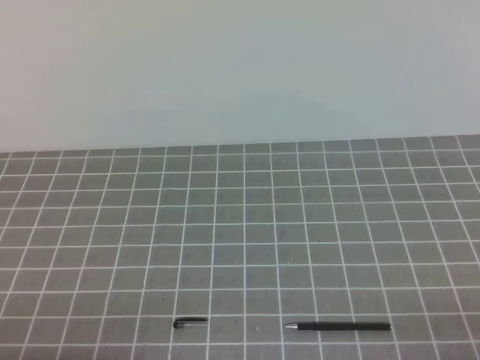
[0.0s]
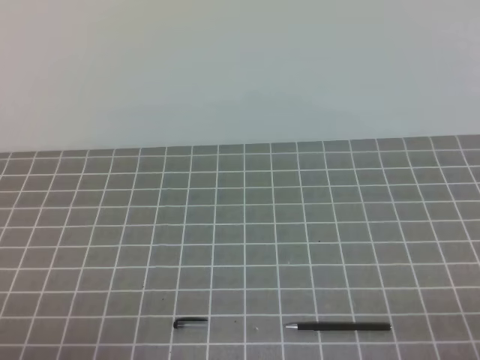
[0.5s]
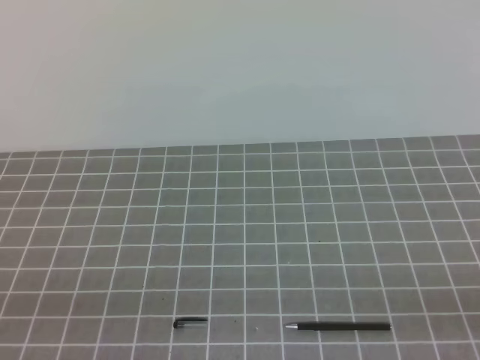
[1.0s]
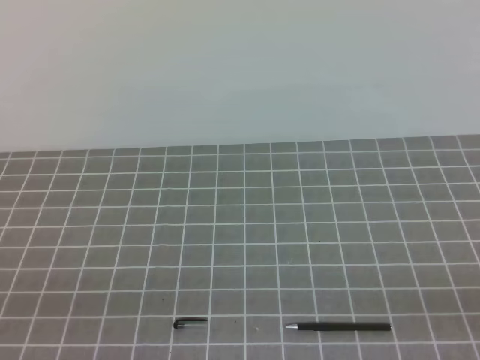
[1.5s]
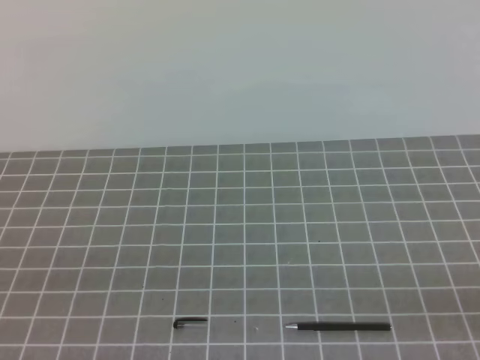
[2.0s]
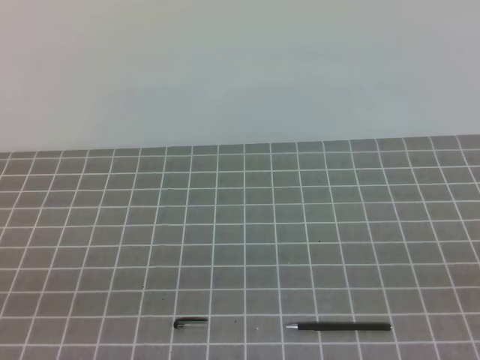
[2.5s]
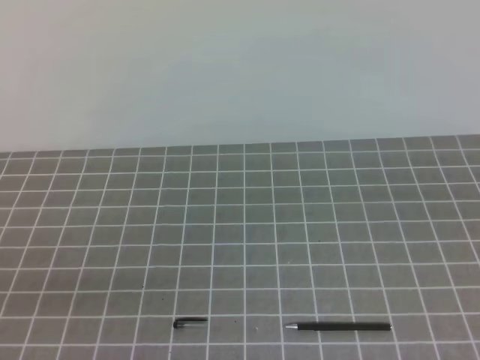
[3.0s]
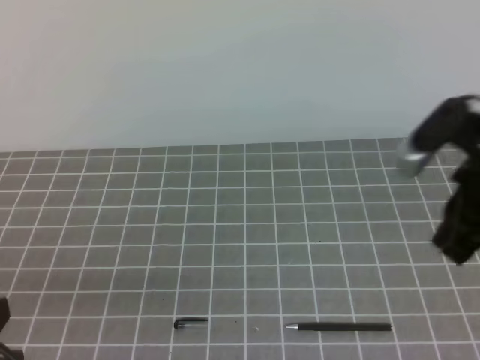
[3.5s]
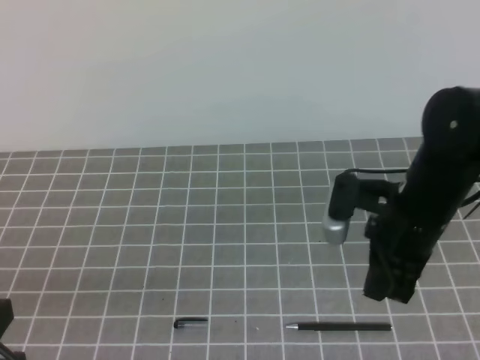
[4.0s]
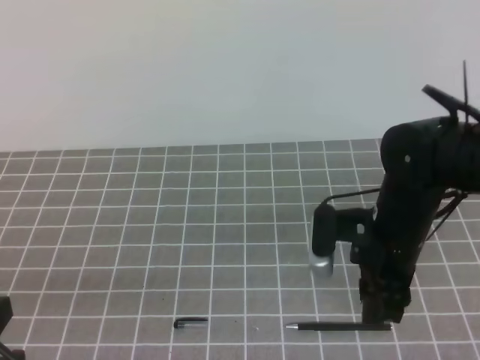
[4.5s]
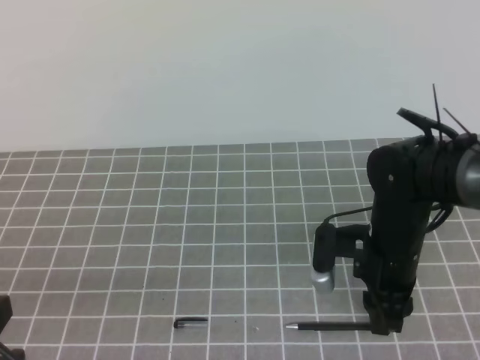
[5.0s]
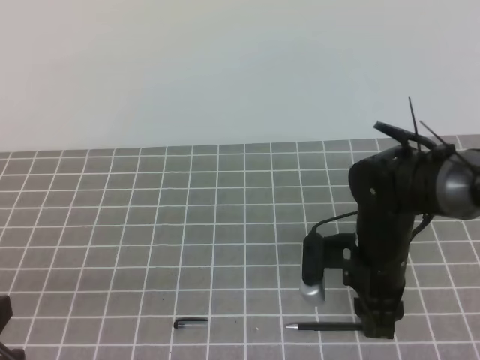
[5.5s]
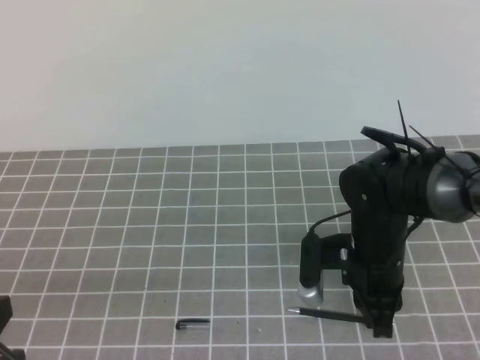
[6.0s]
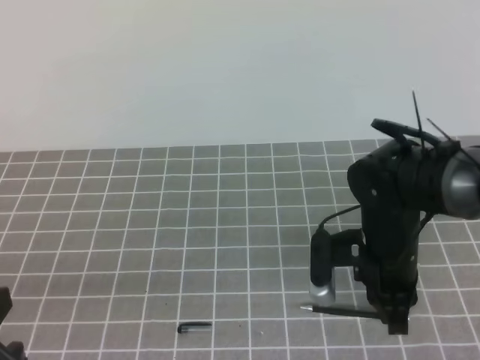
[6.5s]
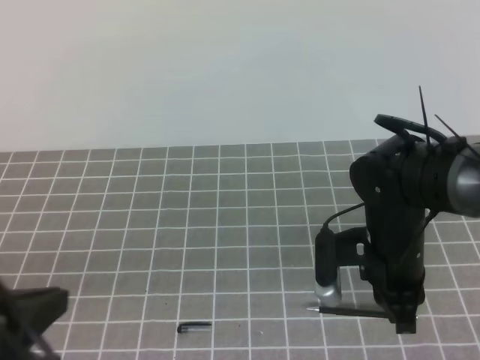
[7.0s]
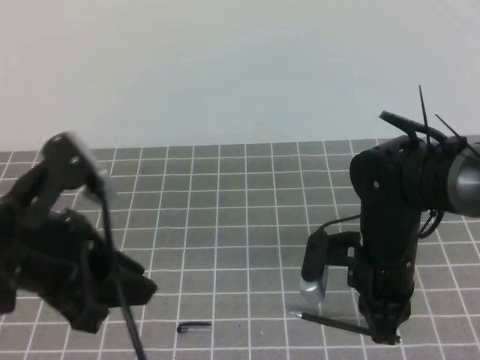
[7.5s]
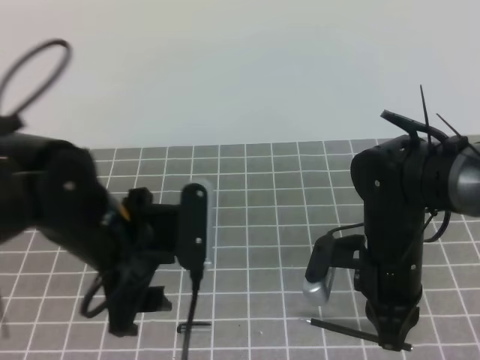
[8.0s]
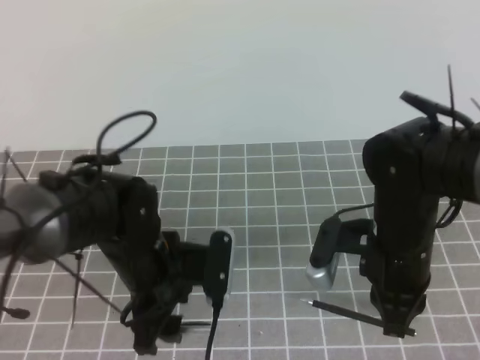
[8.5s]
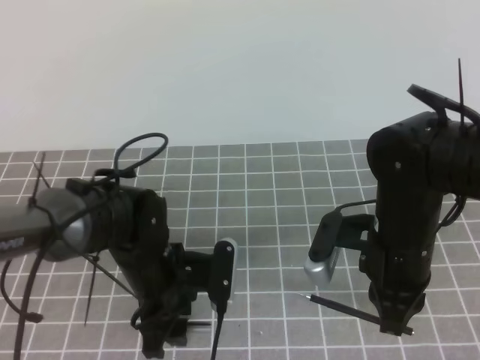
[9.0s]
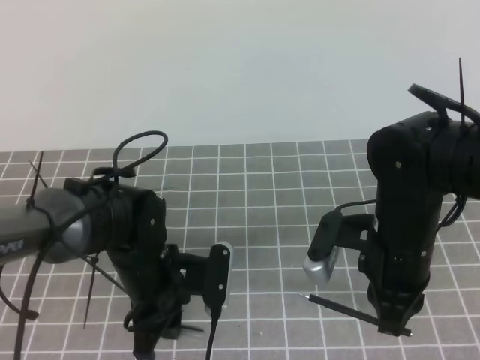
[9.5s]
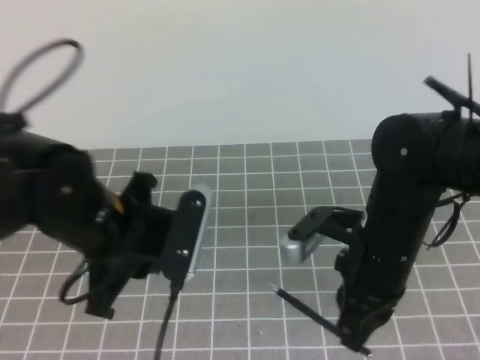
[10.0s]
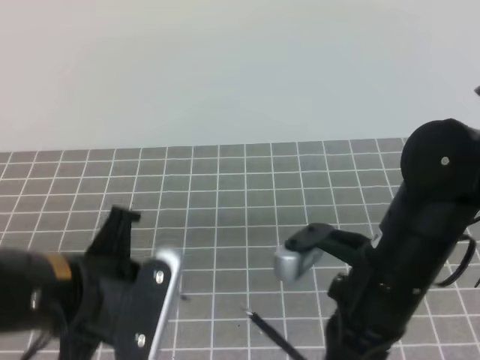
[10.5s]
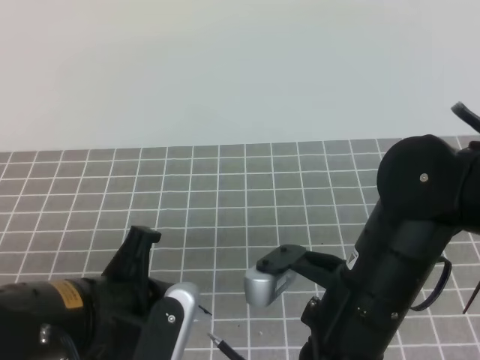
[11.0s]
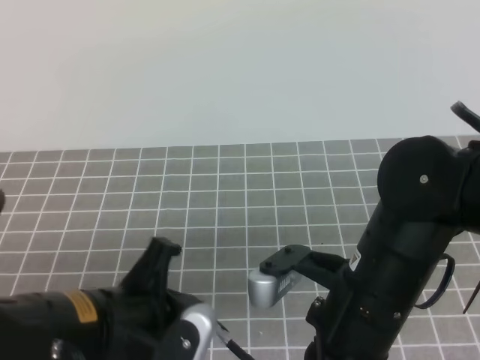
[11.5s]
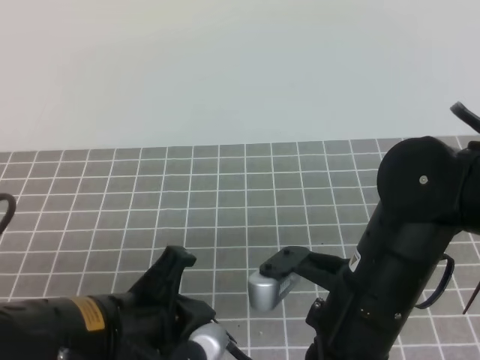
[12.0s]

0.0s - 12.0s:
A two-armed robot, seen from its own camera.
Task of the whole recording: on the grey tablecloth, hold the pen cap in one hand and the pen in the other, then cover the pen cap.
2.0s - 4.0s: The right gripper moves forward and to the left, about 30 cm.
4.0s - 6.0s: The right gripper moves downward, approximately 10 cm, and opens, then closes once more.
6.0s - 8.0s: The left gripper is displaced forward and to the right by some 20 cm, and opens.
8.0s - 10.0s: The left gripper goes downward and returns, approximately 10 cm each way, and closes its fingers, while the right gripper shifts by some 5 cm.
10.0s - 12.0s: Both grippers move backward, approximately 10 cm.

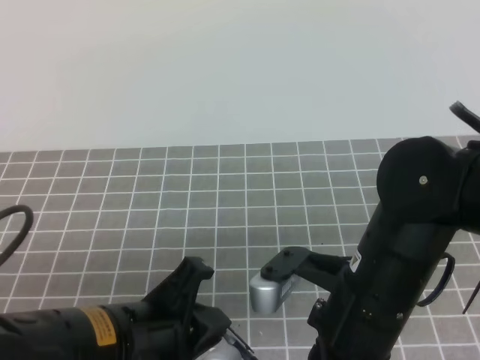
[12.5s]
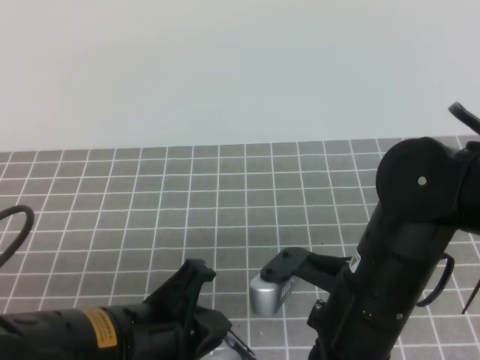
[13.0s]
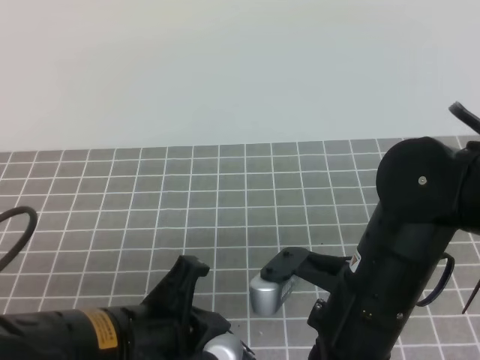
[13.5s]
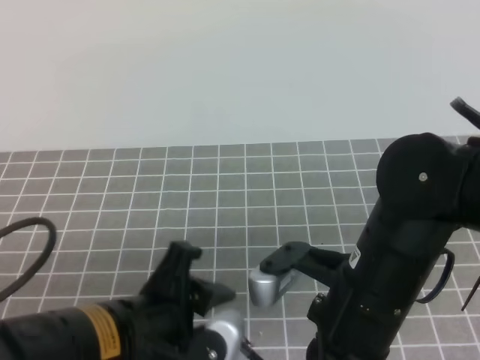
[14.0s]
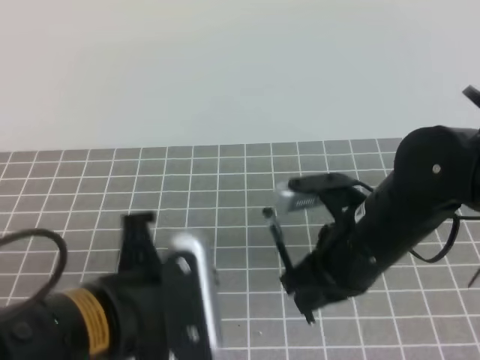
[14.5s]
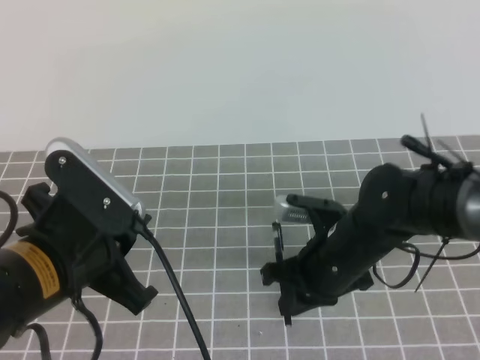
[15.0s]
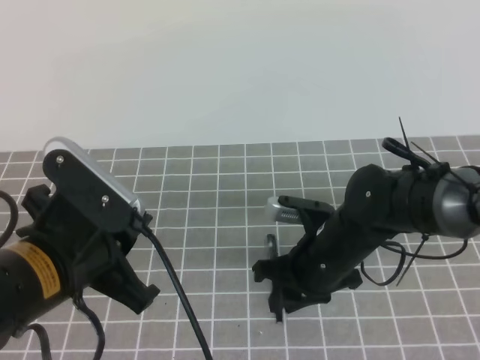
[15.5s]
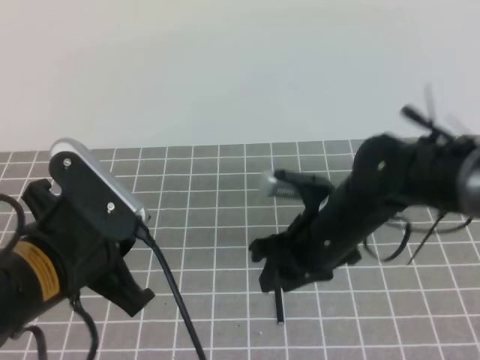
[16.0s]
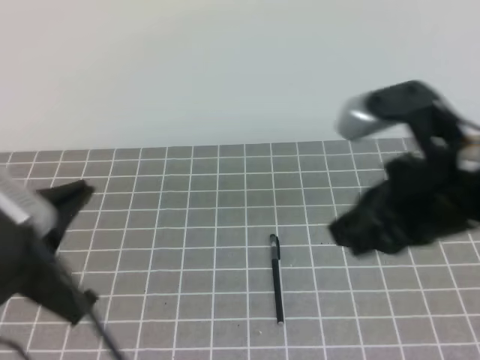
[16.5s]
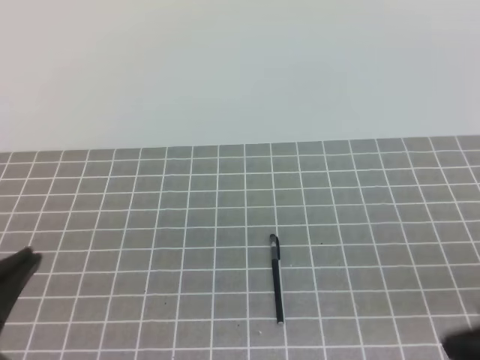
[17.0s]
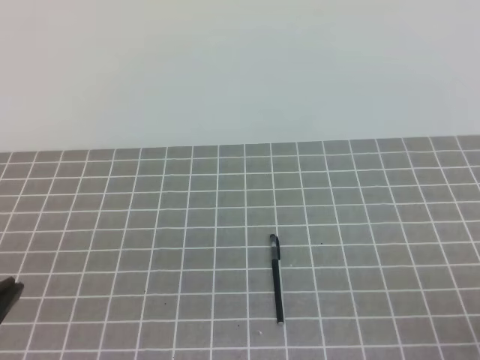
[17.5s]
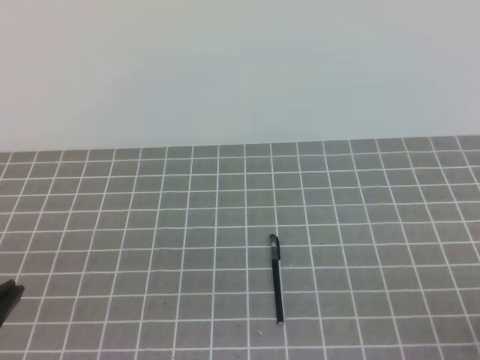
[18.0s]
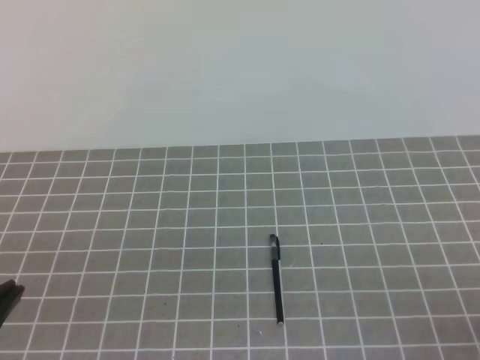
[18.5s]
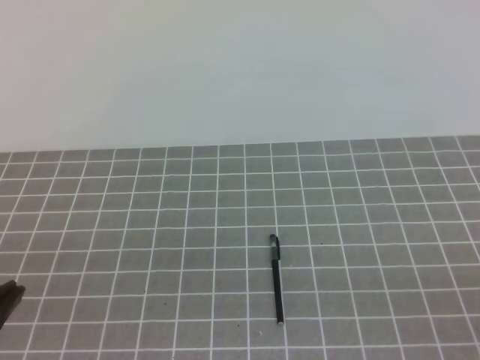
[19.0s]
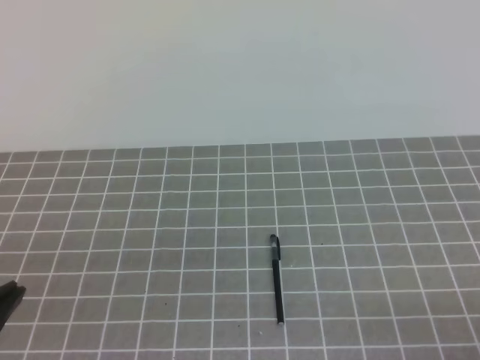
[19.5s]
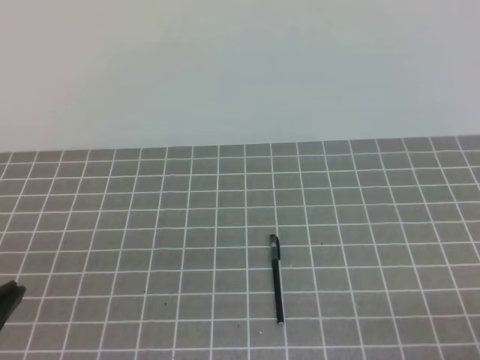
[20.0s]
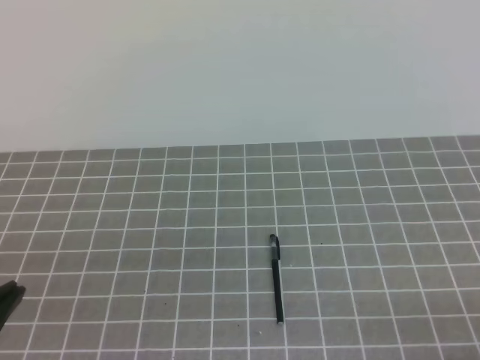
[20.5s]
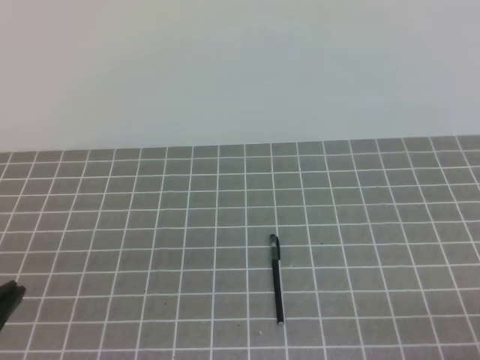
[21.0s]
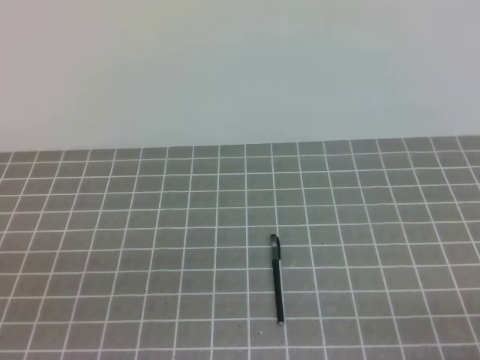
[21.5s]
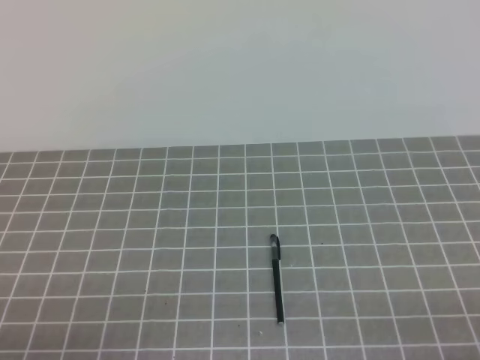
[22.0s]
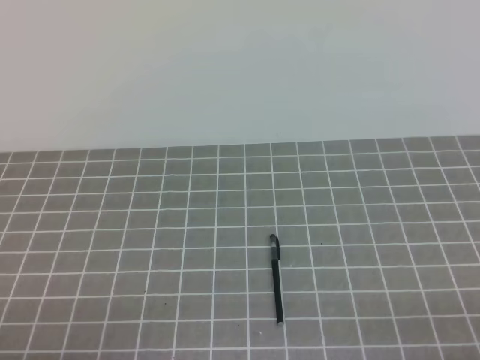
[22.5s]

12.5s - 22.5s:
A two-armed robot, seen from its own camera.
Task of the whole recording: on the grey tablecloth, hold the pen cap in one hand and the pen in the other, then cover the pen cap.
Step, 12.5s - 22.5s: Put the cap on the pen.
12.5s - 14.5s: The left gripper opens, then closes once more. Meanwhile the right gripper heads forward, covering approximately 5 cm.
14.5s - 16.5s: The left gripper travels to the left by approximately 5 cm, while the right gripper heads upward and to the right, covering roughly 10 cm, and opens, then closes again.
16.5s - 18.5s: The right gripper moves backward, to the right and downward, about 20 cm. The left gripper is displaced backward by about 5 cm.
